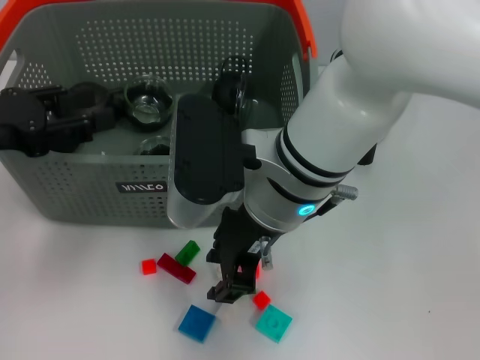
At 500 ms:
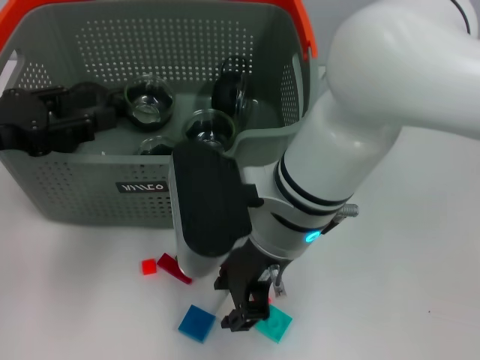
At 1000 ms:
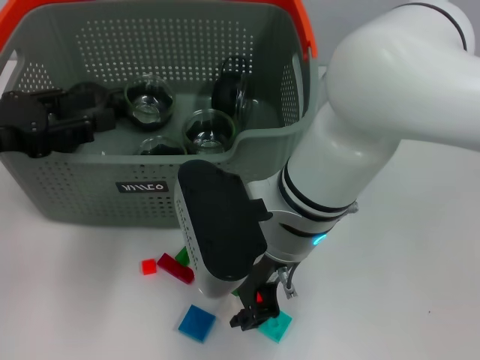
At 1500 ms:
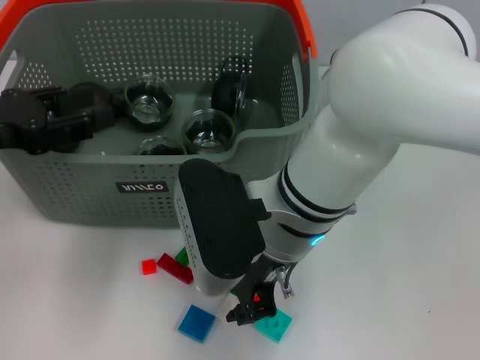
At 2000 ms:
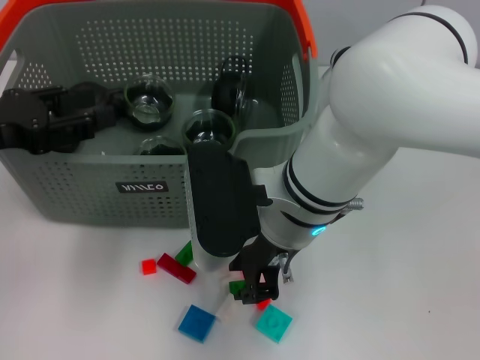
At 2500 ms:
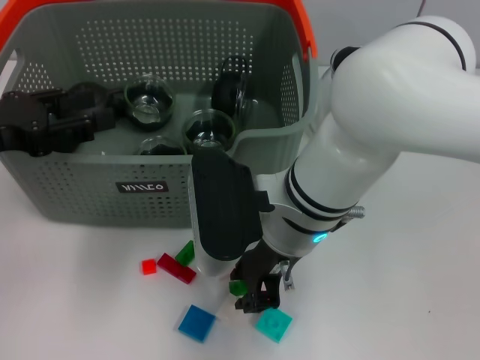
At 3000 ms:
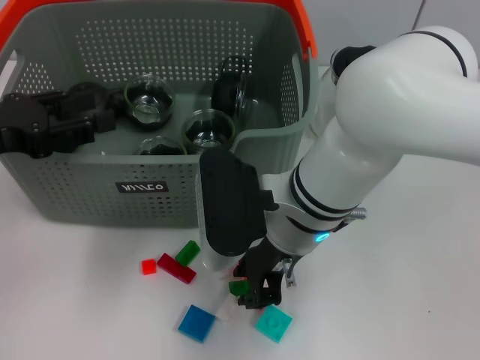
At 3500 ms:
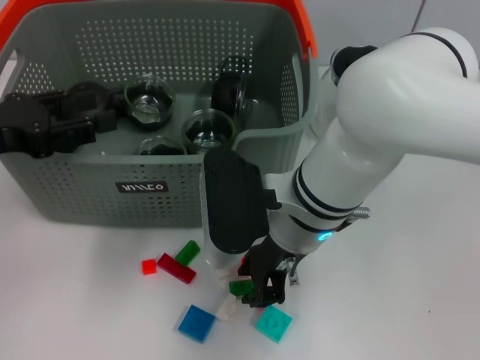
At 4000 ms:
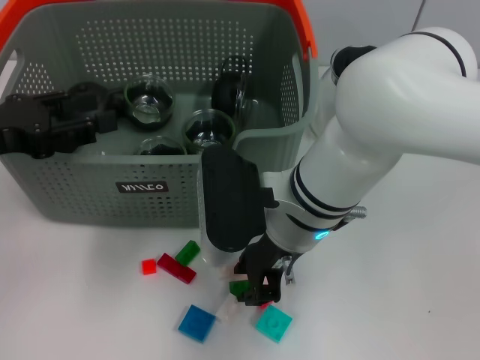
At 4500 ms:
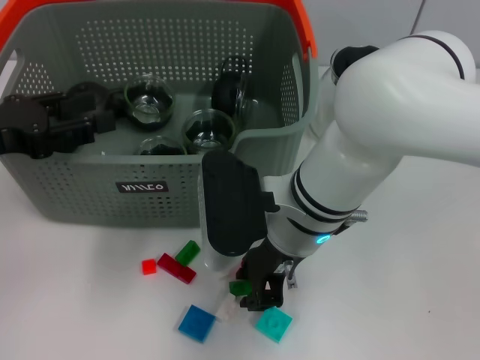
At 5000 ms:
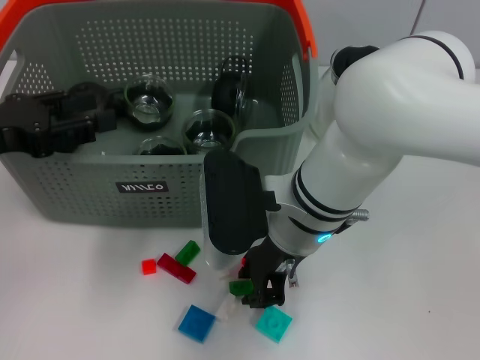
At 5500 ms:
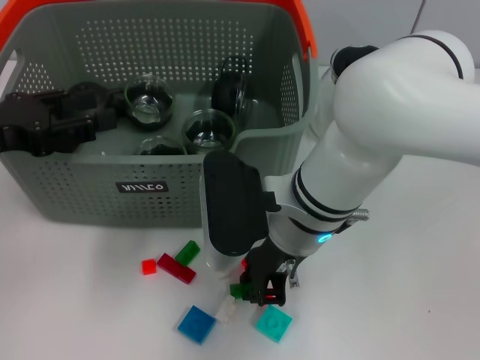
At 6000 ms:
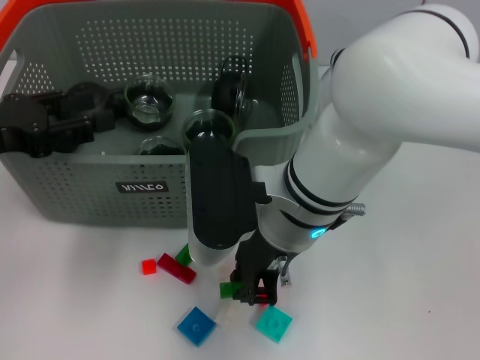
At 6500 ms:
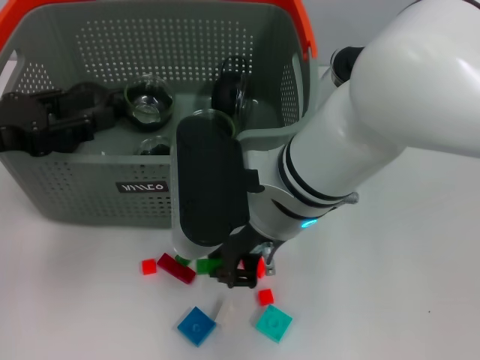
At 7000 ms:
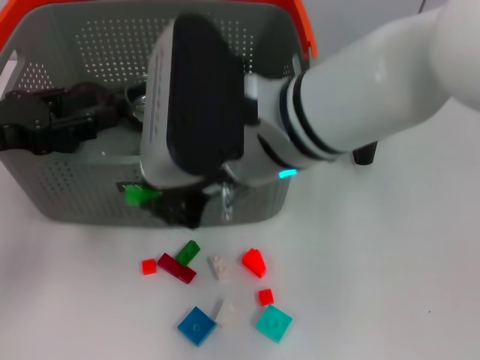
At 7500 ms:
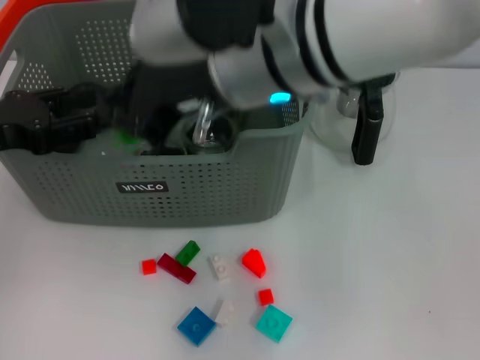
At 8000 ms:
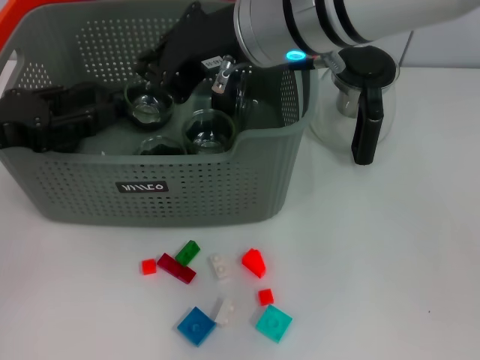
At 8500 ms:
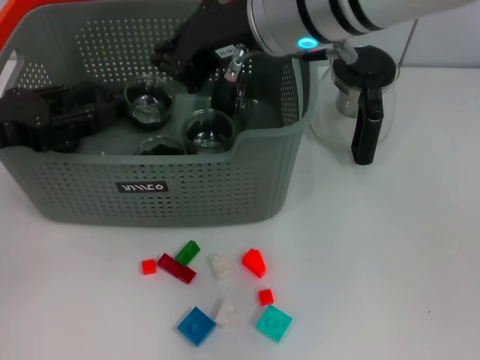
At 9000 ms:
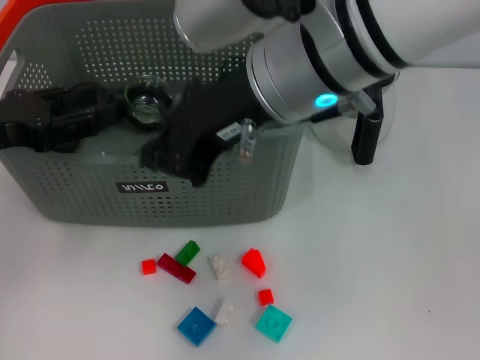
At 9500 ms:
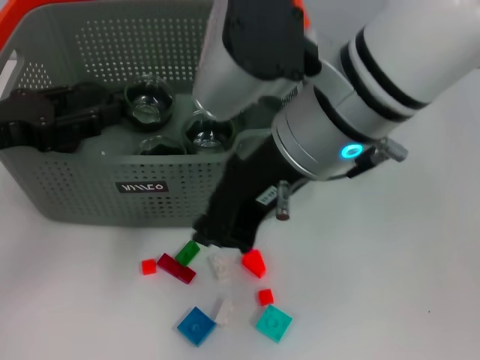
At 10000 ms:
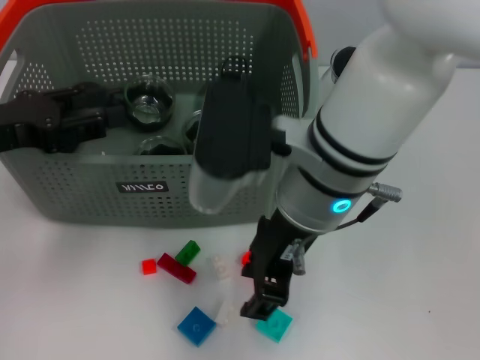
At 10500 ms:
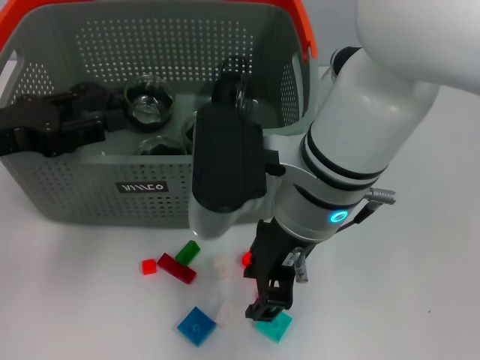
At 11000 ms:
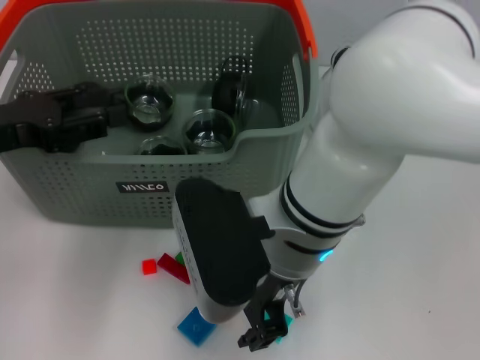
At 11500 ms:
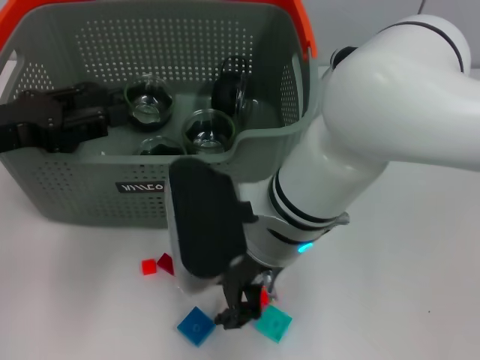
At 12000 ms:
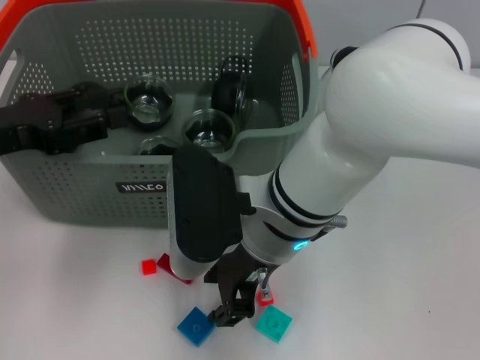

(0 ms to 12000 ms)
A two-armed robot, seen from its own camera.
Task of the whole recording: pick up the teacup on the table and place it into the storage bin, pick up the block on the table and place it into the storage bin.
Step, 0 ms - 5500 ms: Grasp the green block with right gripper.
Step, 6000 ms - 8500 ms: Place the green block in the storage box with right gripper.
0 ms - 6000 ms: There are only small adjustments of the grippers.
6000 ms - 8000 ms: The right gripper moves upward and forward, approximately 15 cm.
8000 ms - 10000 ms: The right gripper shifts some 10 cm downward and backward.
10000 ms - 12000 ms: The right gripper travels downward by approximately 5 cm.

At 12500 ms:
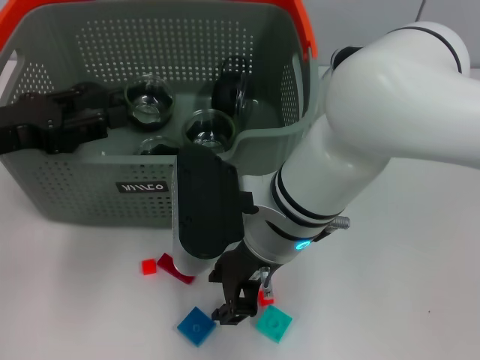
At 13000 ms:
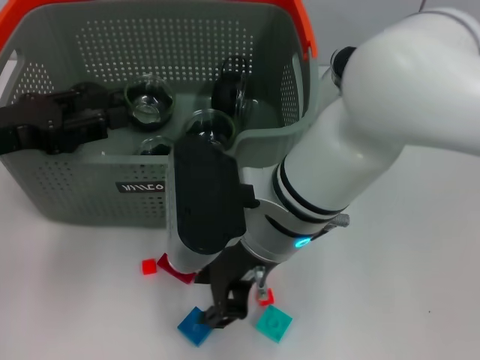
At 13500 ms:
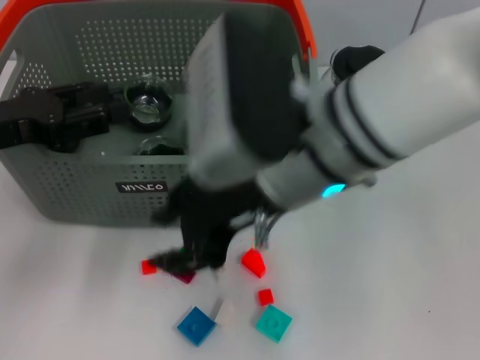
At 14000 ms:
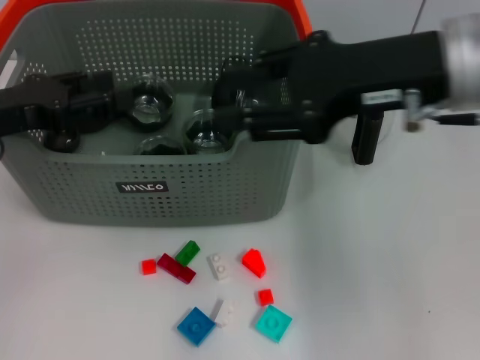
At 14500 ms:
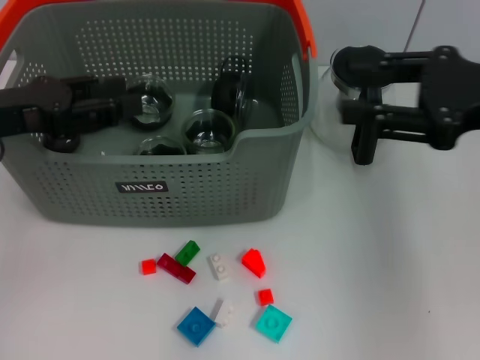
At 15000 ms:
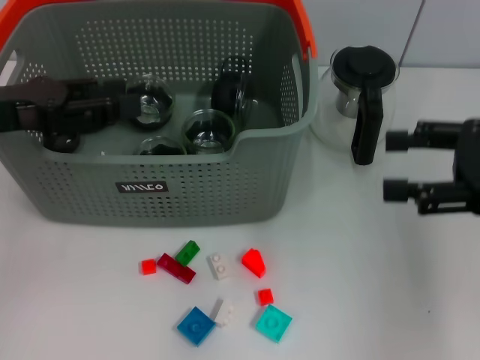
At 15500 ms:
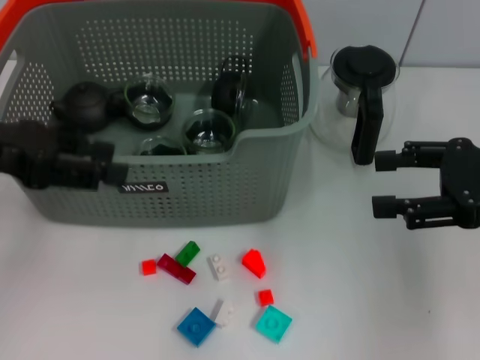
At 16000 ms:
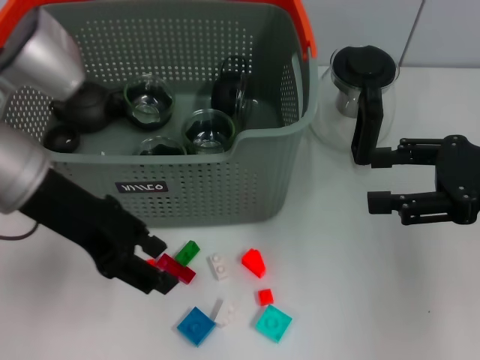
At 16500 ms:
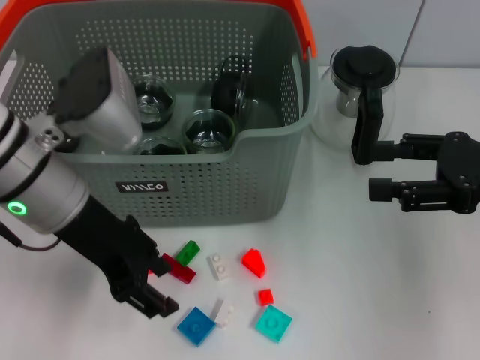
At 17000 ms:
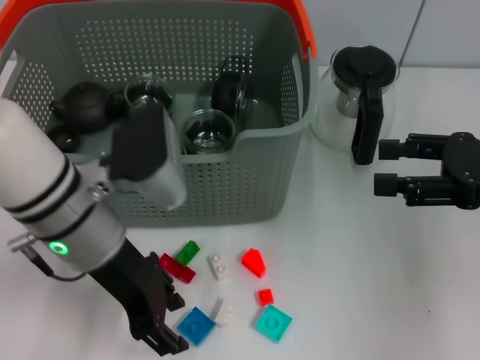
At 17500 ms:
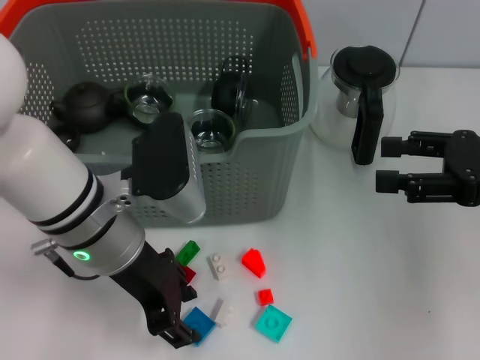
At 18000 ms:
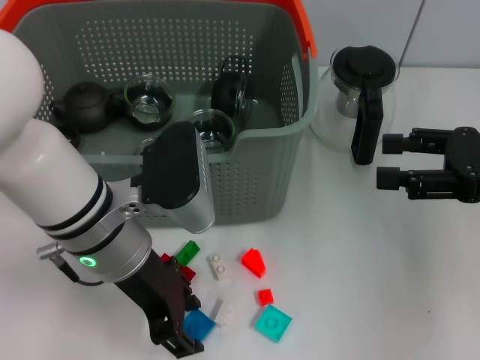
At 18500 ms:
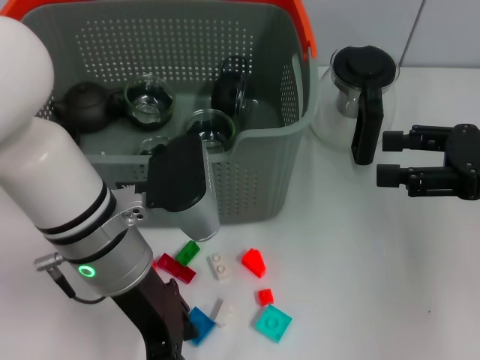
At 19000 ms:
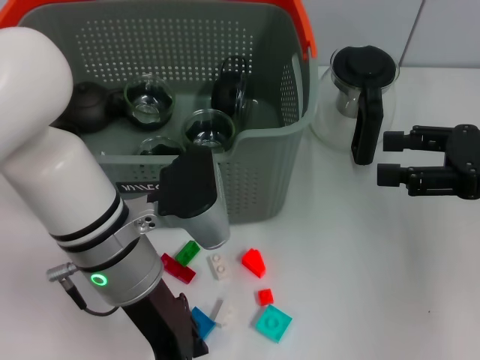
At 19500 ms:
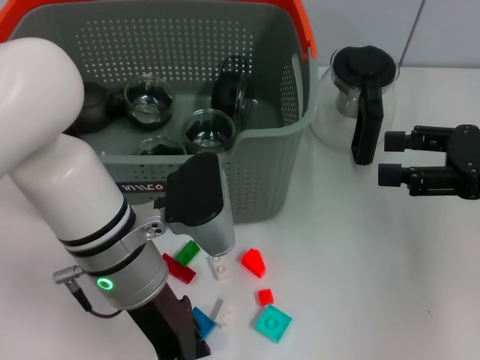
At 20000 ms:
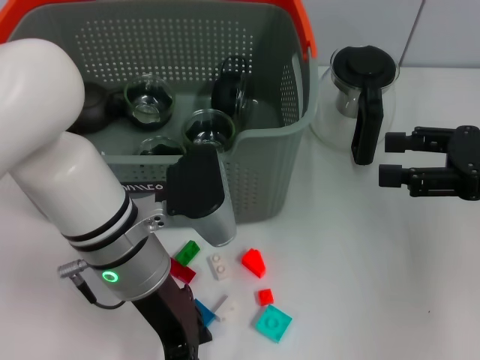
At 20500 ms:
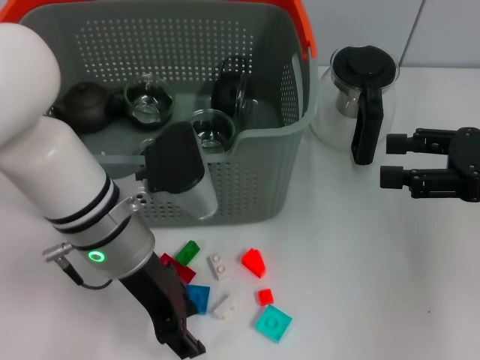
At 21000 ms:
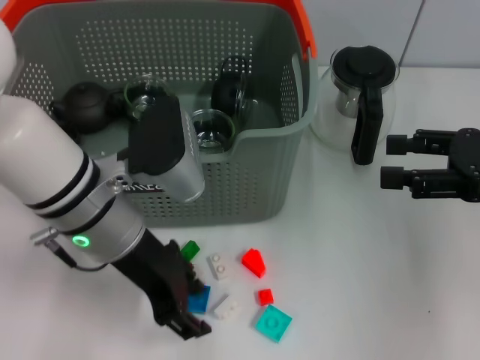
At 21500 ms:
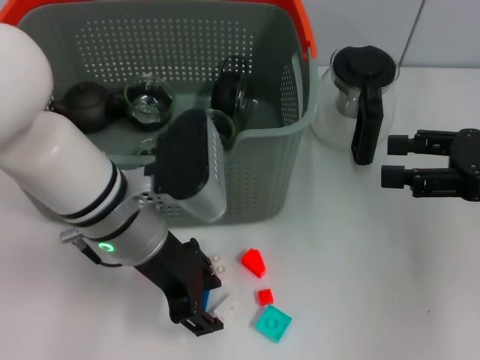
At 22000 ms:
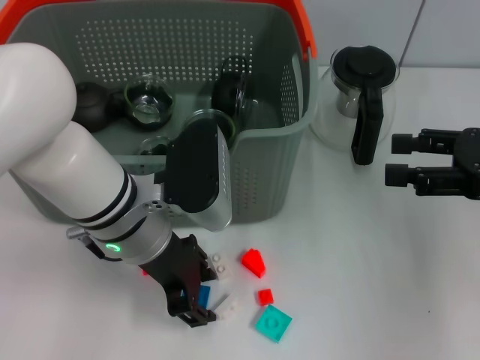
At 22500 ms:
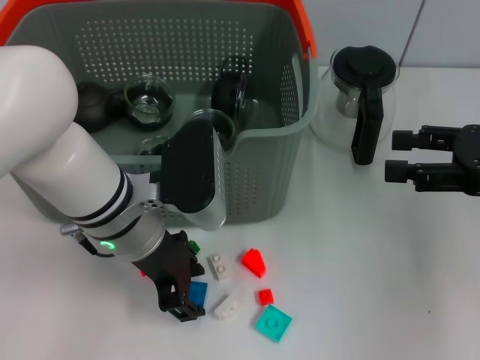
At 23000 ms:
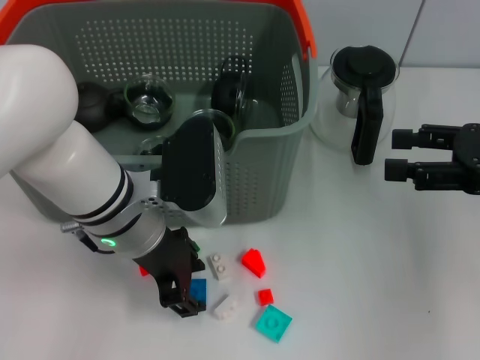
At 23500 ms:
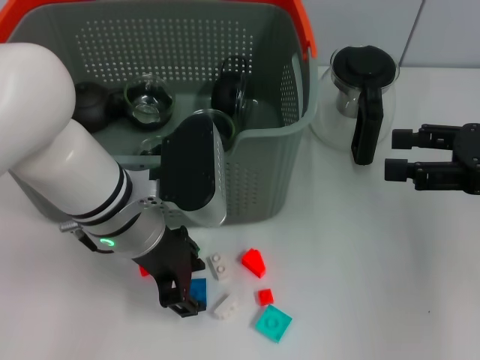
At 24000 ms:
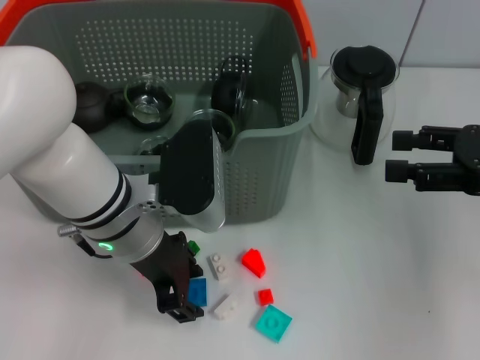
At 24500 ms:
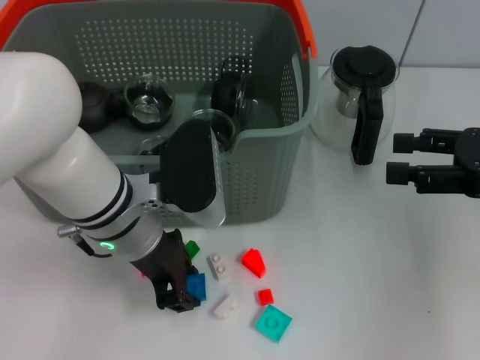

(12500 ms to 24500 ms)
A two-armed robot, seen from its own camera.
Task of the whole recording: pick up the teacup on the table and place it into the storage bin, pick up the block on the table and place it into the storage bin.
Step, 12500 ms - 24000 ms: Grasp the dark blue block with left gripper.
12500 ms - 14500 ms: The right gripper moves to the right, approximately 25 cm.
14500 ms - 16500 ms: The left gripper goes some 10 cm to the right, while the right gripper is displaced downward by about 5 cm.
16500 ms - 18500 ms: The left gripper travels to the right by about 5 cm.
18500 ms - 22500 ms: The grippers stay close to where they were, moving slightly.
22500 ms - 24500 ms: Neither gripper changes place.

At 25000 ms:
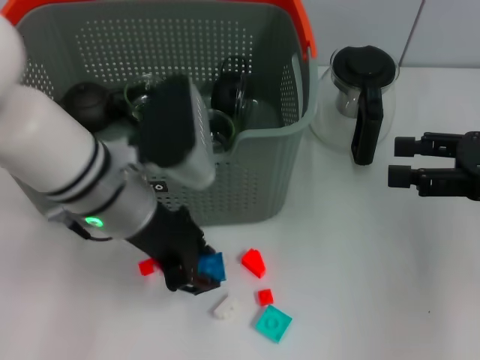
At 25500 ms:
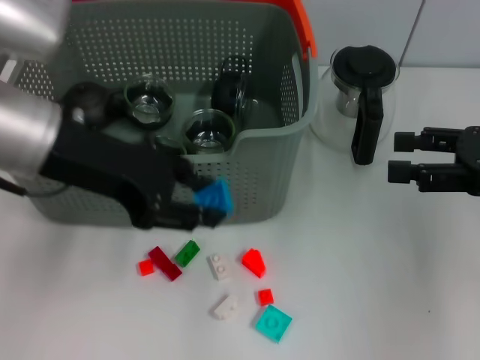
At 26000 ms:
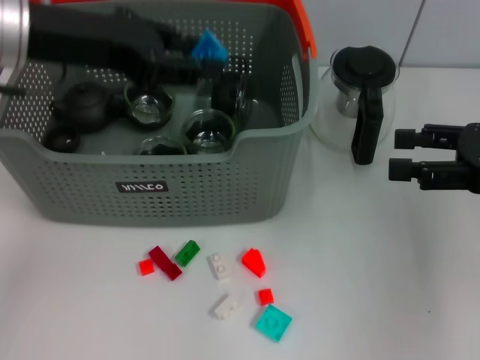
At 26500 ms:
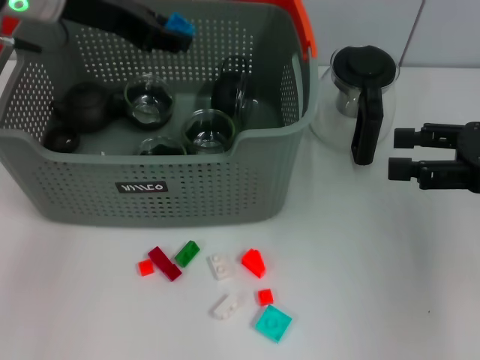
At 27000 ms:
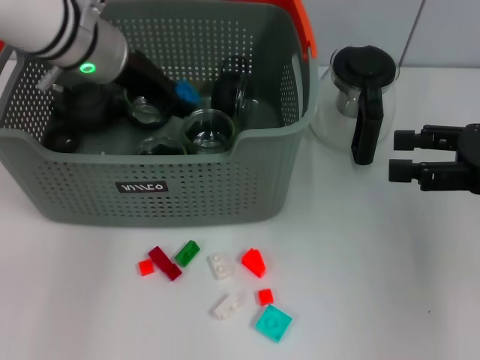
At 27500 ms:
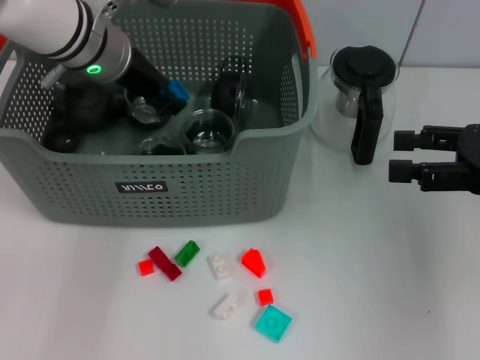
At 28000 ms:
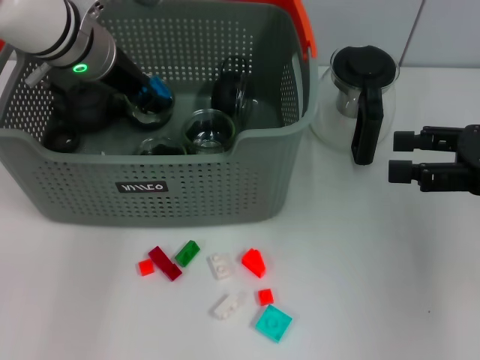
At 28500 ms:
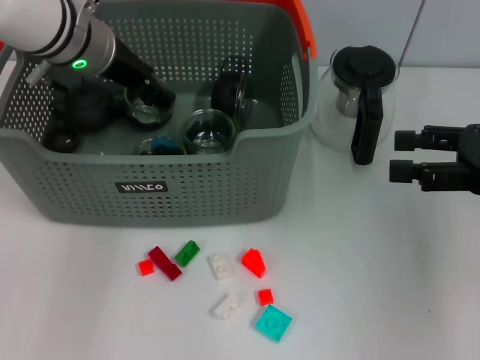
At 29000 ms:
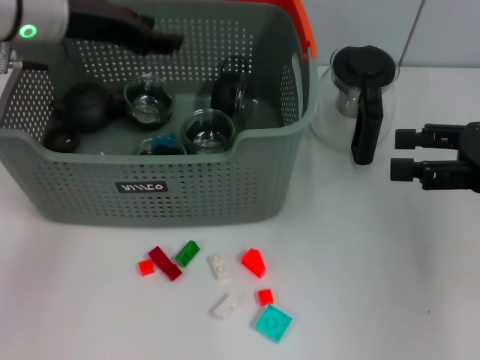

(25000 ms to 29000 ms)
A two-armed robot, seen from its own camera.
Task of the whole recording: pick up the teacup on the table and place it into the storage bin, pick up the block on the table and place it into the storage bin.
Step, 25000 ms - 28500 ms: Place the dark blue block in the storage box with left gripper.
25000 ms - 27000 ms: The left gripper is displaced forward by some 10 cm.
27000 ms - 29000 ms: The left gripper ends up approximately 5 cm from where it was.
